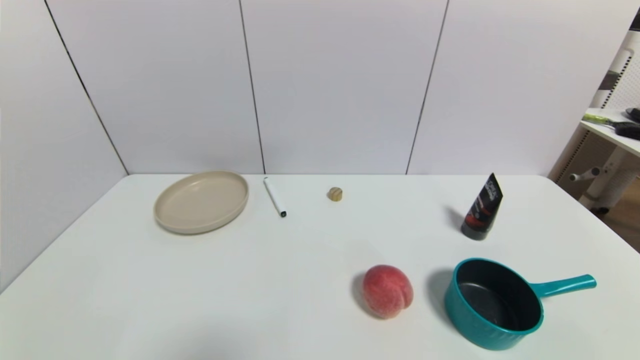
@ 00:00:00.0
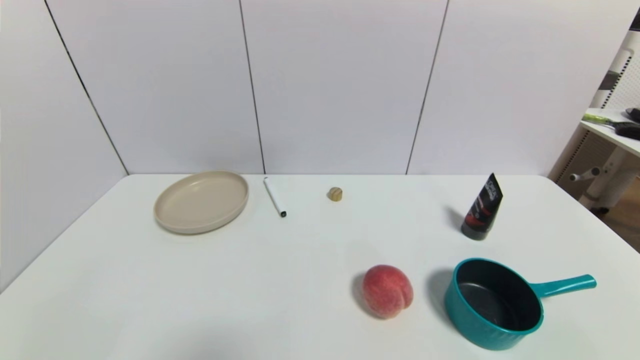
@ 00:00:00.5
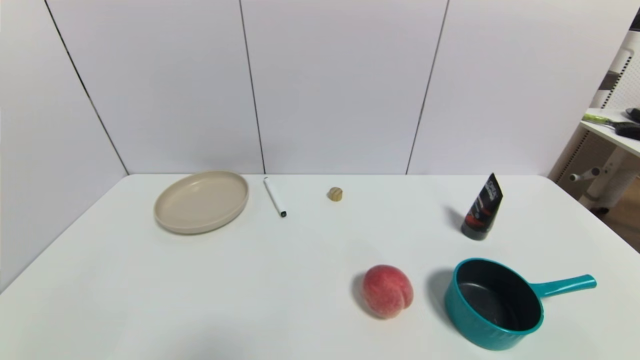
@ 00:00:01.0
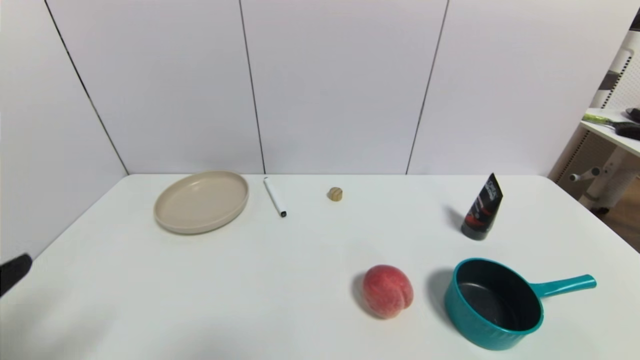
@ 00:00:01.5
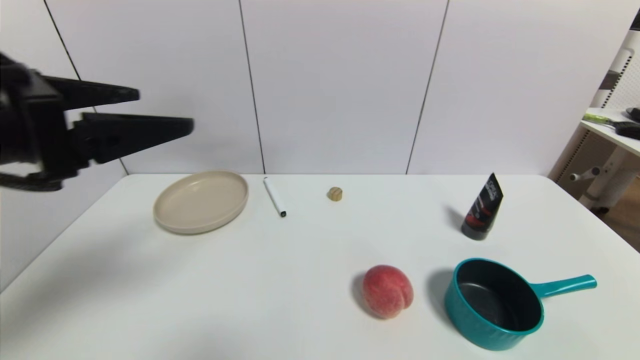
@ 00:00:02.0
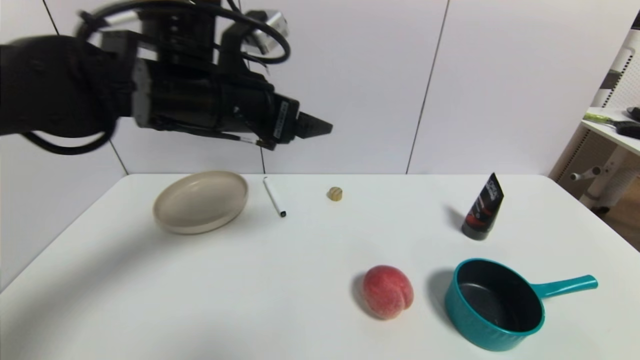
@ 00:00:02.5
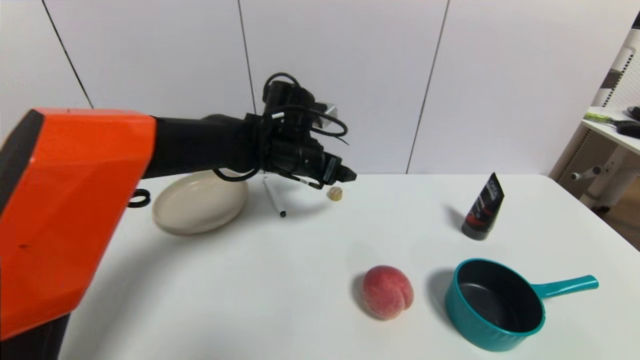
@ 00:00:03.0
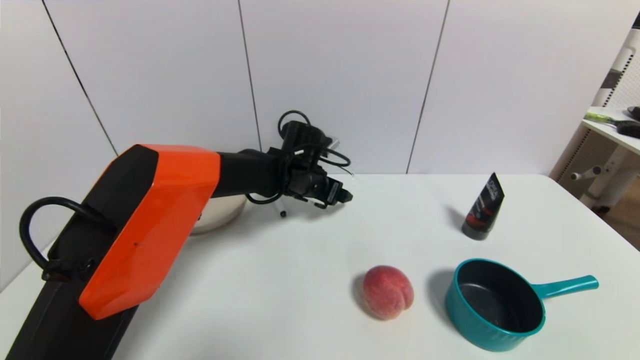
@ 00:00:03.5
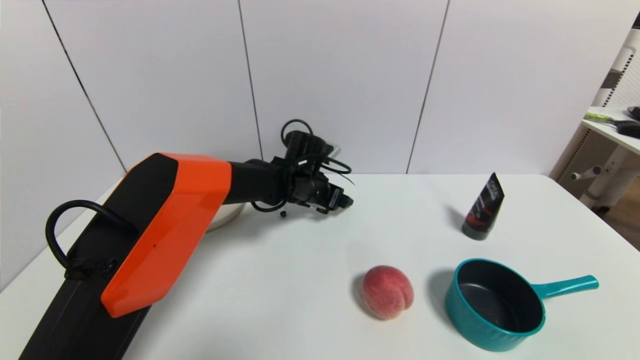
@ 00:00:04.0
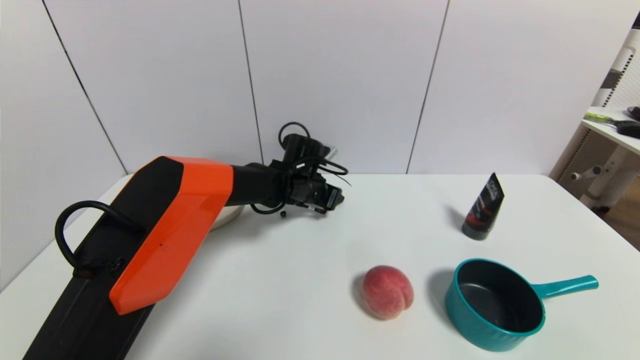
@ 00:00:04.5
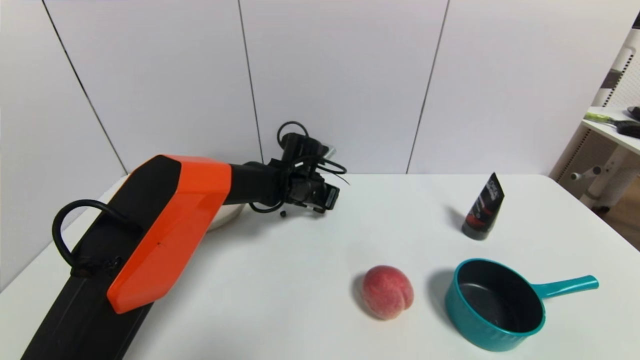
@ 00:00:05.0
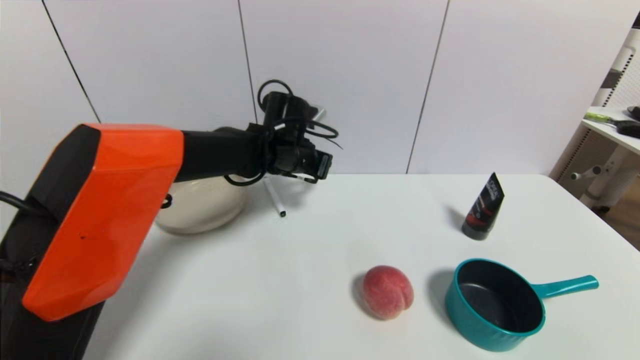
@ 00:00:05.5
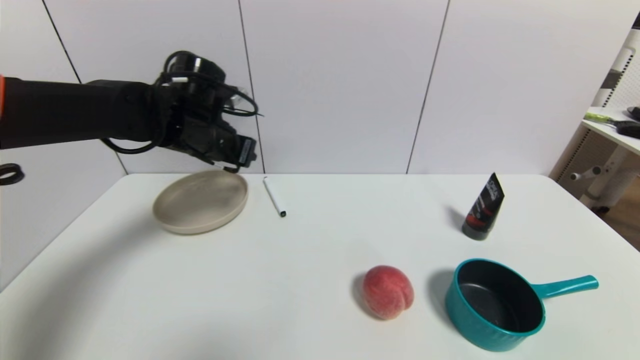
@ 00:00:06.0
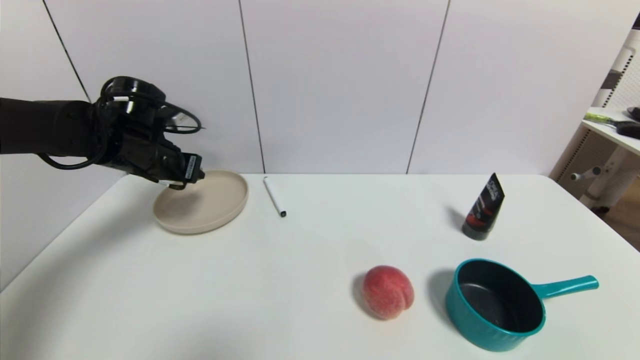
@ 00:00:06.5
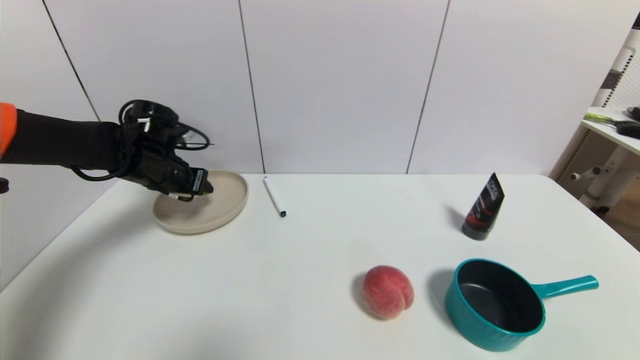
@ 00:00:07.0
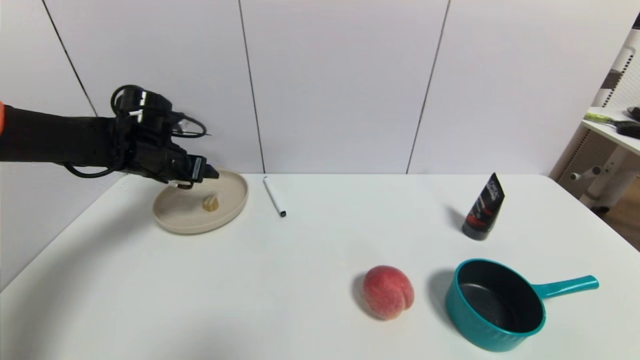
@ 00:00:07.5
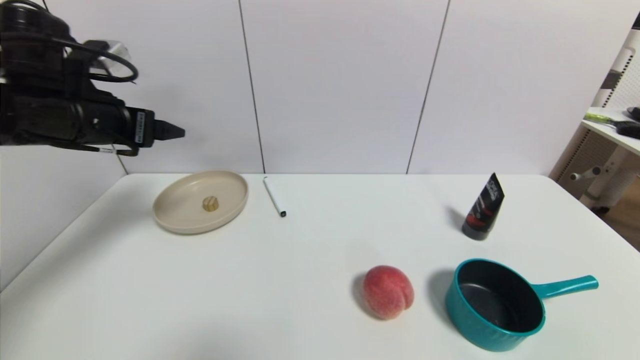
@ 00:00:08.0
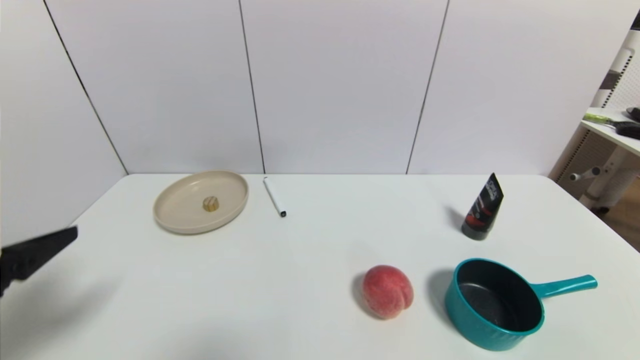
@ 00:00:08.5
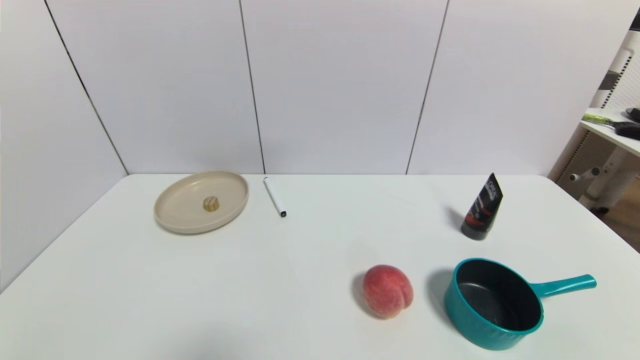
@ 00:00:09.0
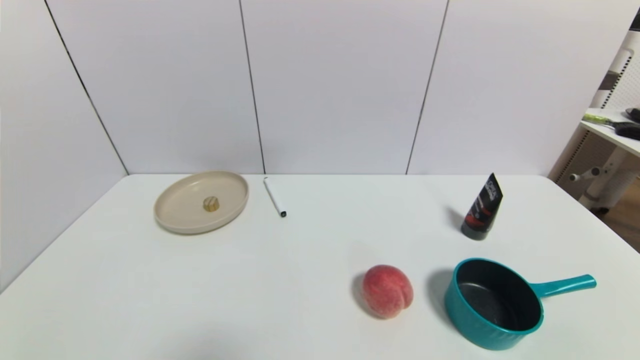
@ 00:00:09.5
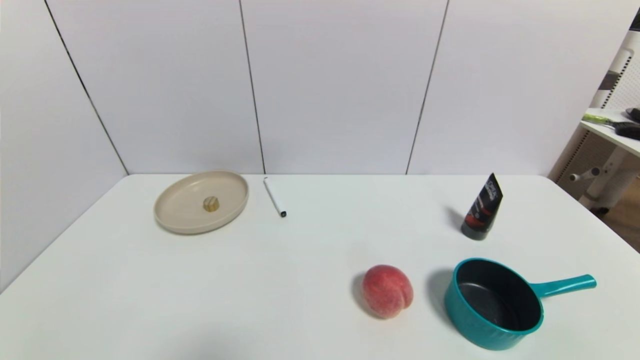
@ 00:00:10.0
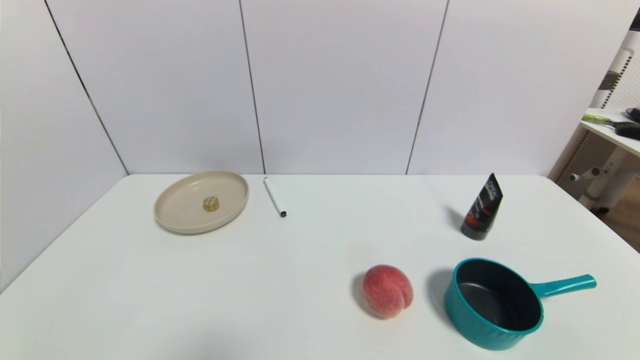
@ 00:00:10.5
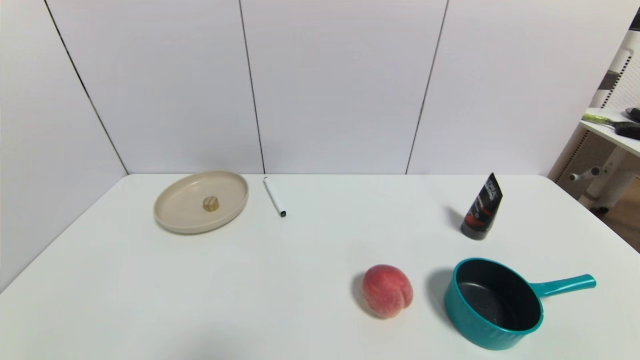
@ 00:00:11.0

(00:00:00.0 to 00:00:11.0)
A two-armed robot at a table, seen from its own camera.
Task of the whole recording: use a gripper to pick the target object and place on the brown plate.
Step, 00:00:00.0 - 00:00:04.5: Grasp the round wooden block with the left gripper.
Step, 00:00:05.0 - 00:00:07.0: Place the round wooden block on the brown plate with the left gripper.
00:00:00.0 - 00:00:02.0: The left gripper travels upward and forward by approximately 30 cm.
00:00:02.0 - 00:00:03.5: The left gripper goes roughly 40 cm forward, downward and to the right.
00:00:03.5 - 00:00:05.5: The left gripper travels upward by roughly 5 cm, and closes its fingers.
00:00:05.5 - 00:00:07.5: The left gripper shifts approximately 20 cm to the left, and opens.
00:00:07.5 - 00:00:09.0: The left gripper shifts roughly 40 cm backward.

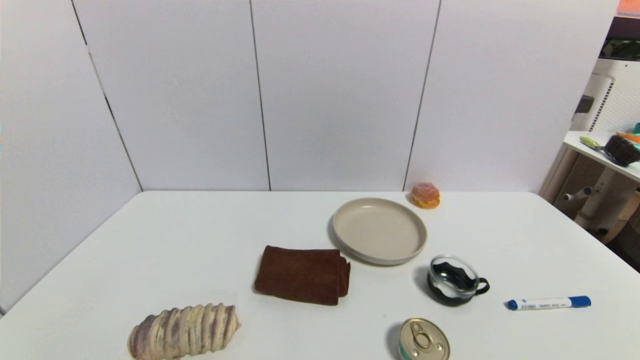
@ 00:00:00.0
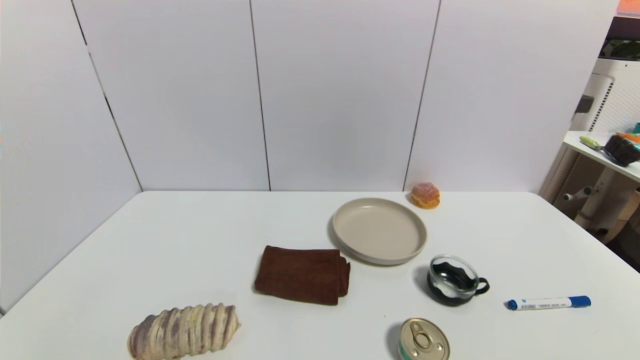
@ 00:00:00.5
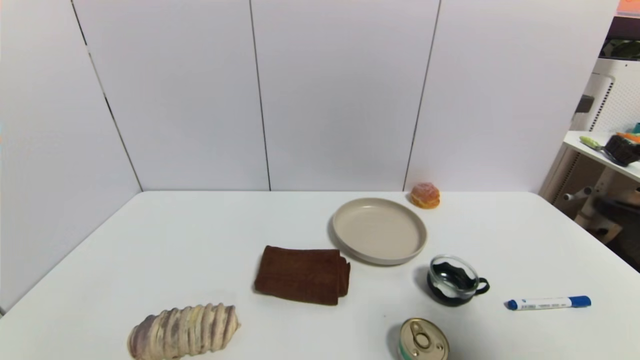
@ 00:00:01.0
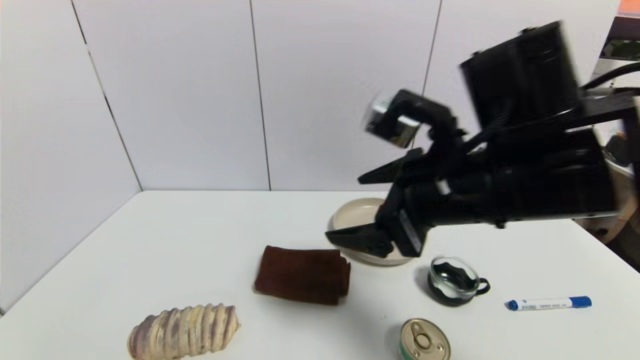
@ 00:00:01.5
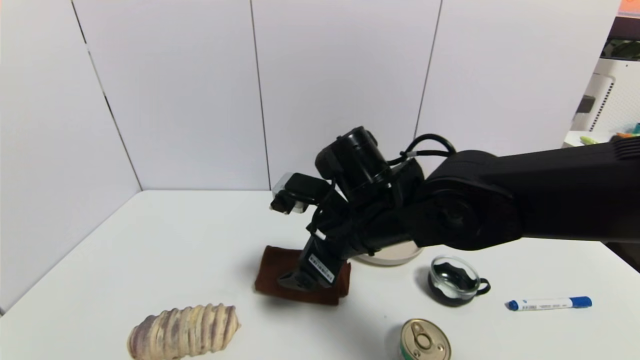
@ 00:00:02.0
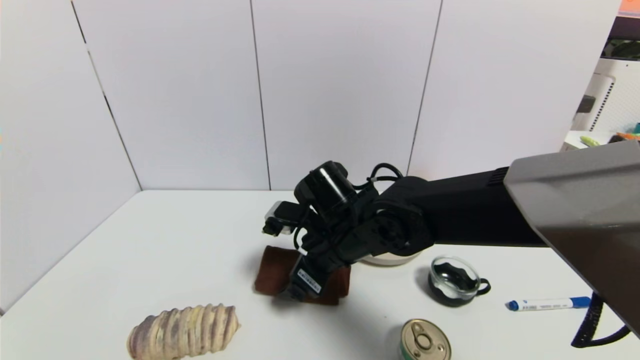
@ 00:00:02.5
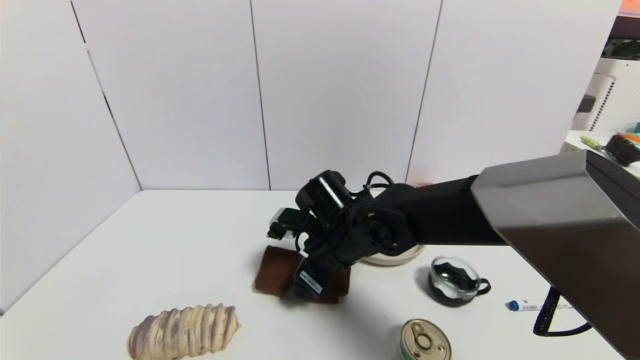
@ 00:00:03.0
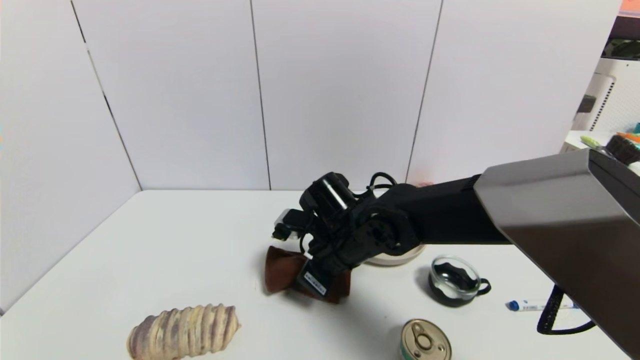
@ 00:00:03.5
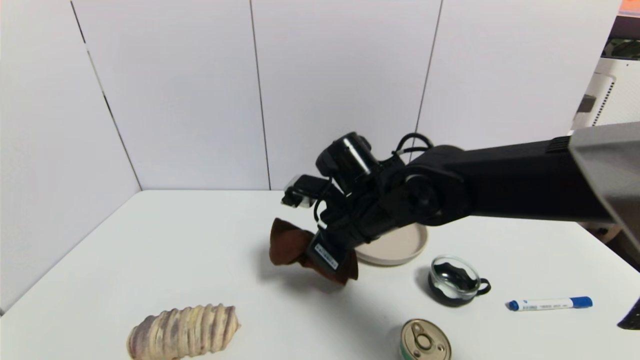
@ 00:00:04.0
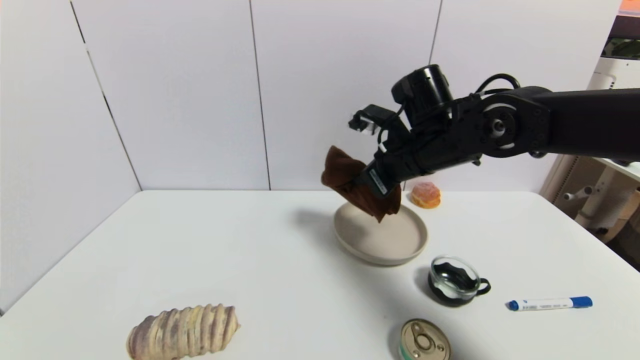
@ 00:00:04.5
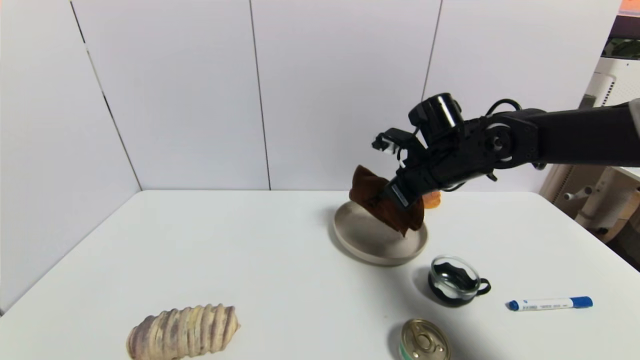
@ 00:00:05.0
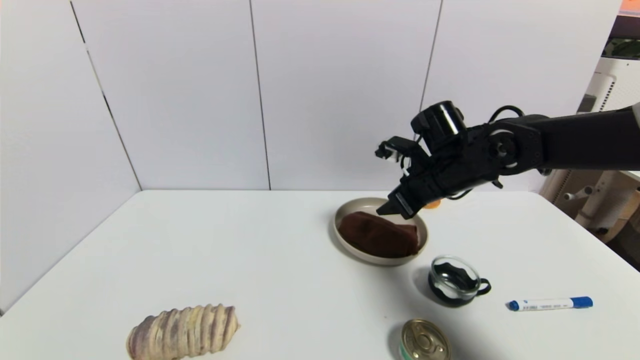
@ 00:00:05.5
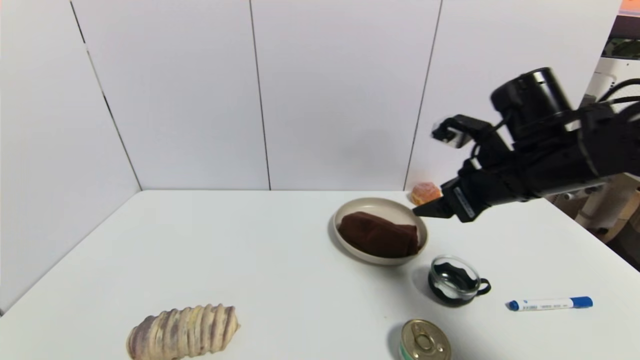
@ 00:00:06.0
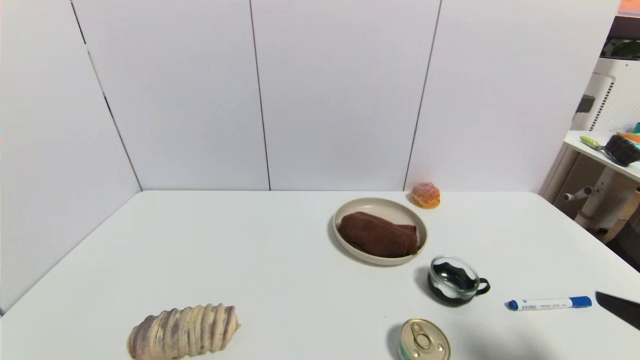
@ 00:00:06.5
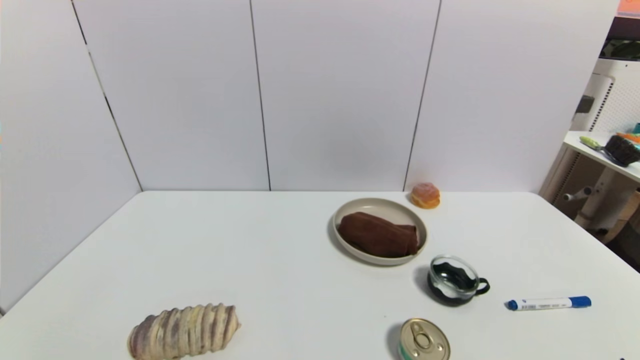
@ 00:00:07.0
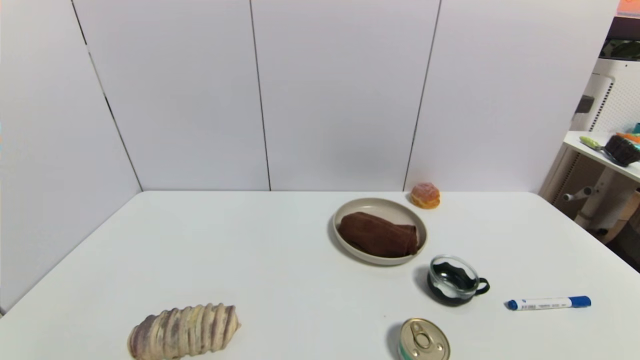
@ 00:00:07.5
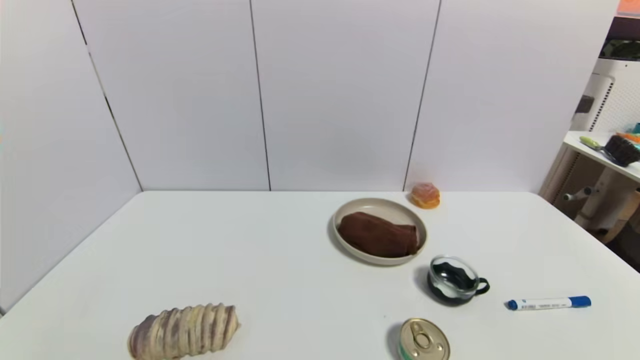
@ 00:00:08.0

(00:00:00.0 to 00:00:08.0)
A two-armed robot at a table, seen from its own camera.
Task of the whole recording: use a gripper to pick the target object and place on the brown plate.
Step, 00:00:00.0 - 00:00:03.5: Grasp the brown towel with the right gripper.
Step, 00:00:04.0 - 00:00:05.0: Place the brown towel on the brown plate with the right gripper.
00:00:00.0 - 00:00:02.0: The right gripper goes some 40 cm to the left and forward.
00:00:02.0 - 00:00:04.0: The right gripper closes up.
00:00:04.0 - 00:00:06.0: The right gripper goes roughly 20 cm to the right, and opens its fingers.
00:00:06.0 - 00:00:08.0: The right gripper moves backward and downward, roughly 35 cm.
